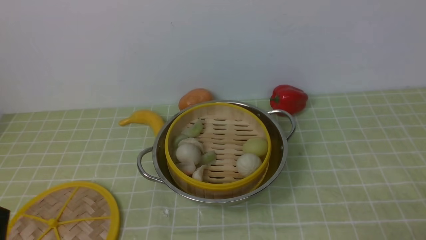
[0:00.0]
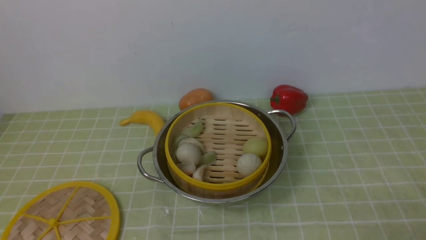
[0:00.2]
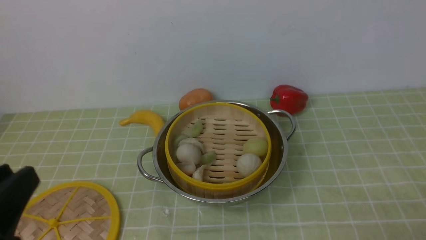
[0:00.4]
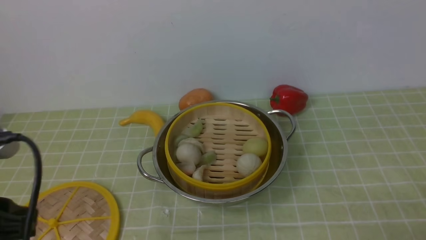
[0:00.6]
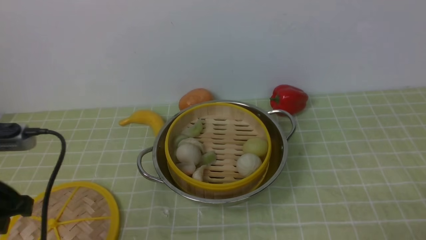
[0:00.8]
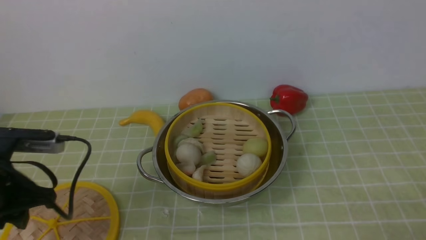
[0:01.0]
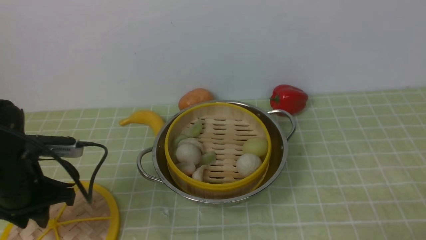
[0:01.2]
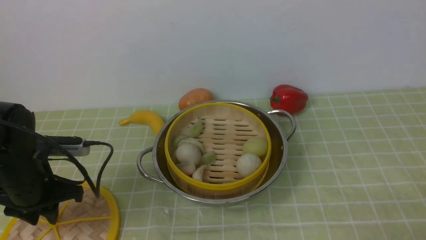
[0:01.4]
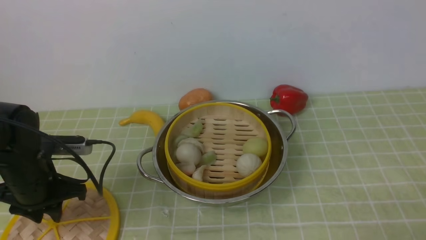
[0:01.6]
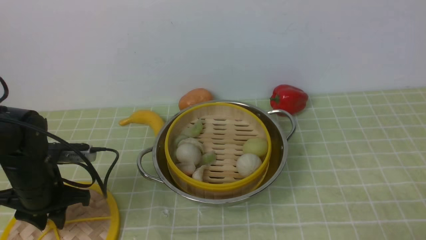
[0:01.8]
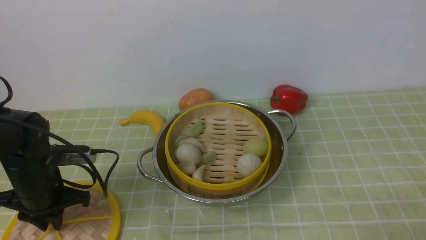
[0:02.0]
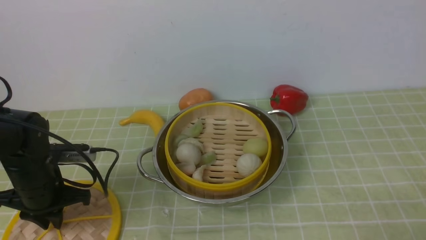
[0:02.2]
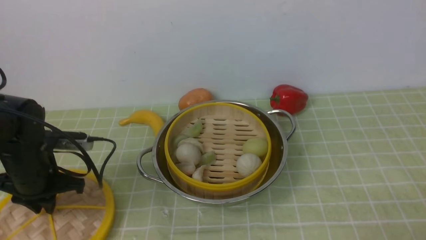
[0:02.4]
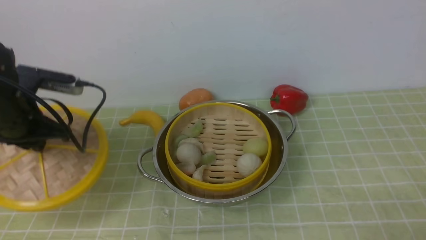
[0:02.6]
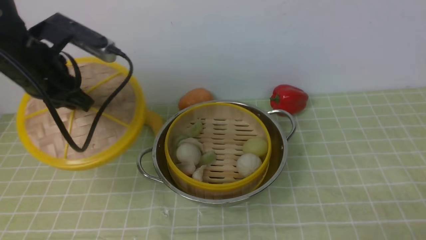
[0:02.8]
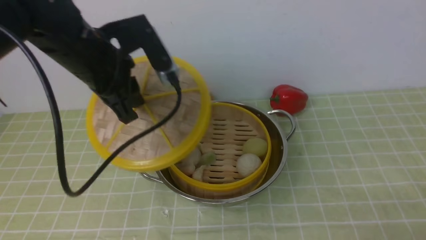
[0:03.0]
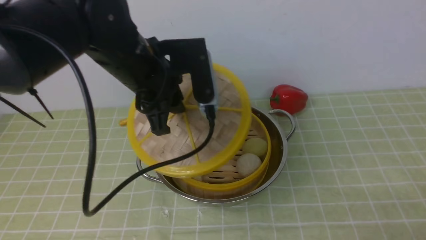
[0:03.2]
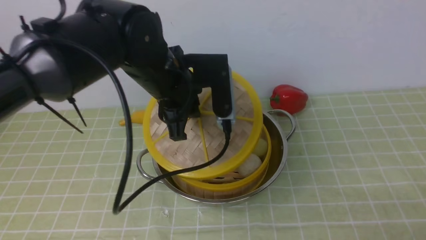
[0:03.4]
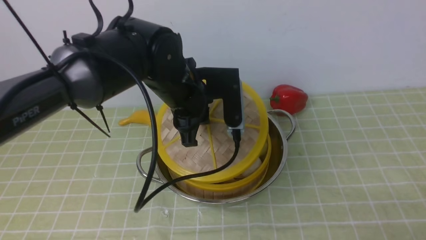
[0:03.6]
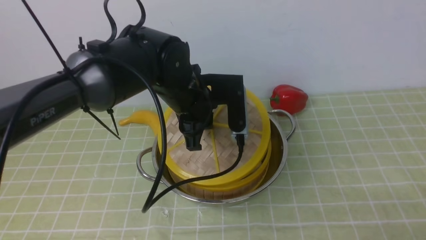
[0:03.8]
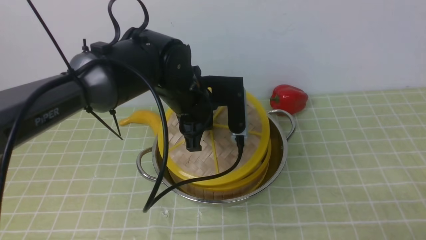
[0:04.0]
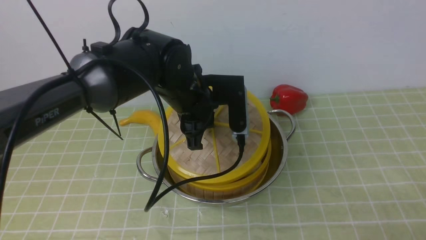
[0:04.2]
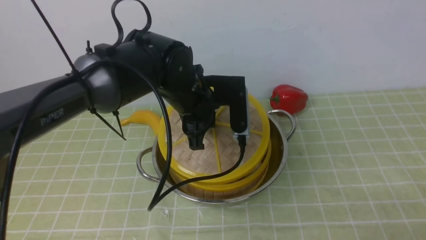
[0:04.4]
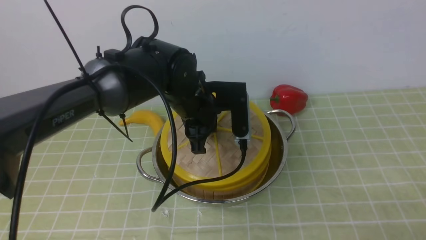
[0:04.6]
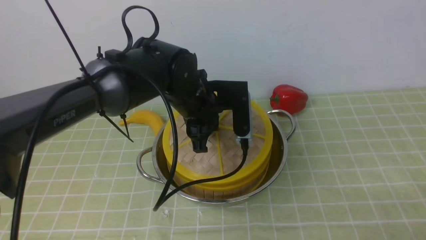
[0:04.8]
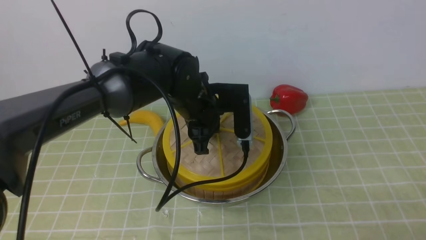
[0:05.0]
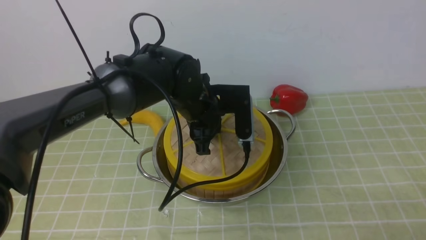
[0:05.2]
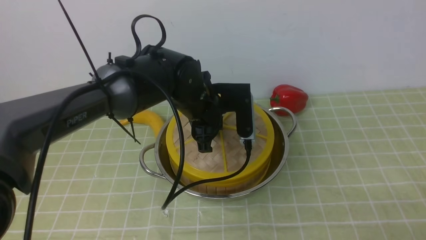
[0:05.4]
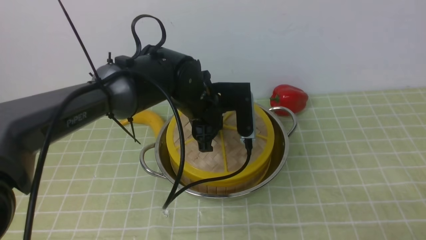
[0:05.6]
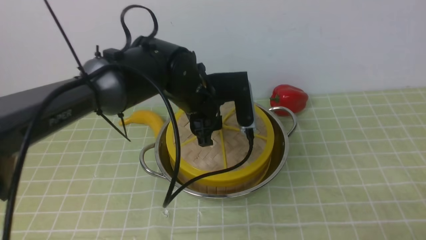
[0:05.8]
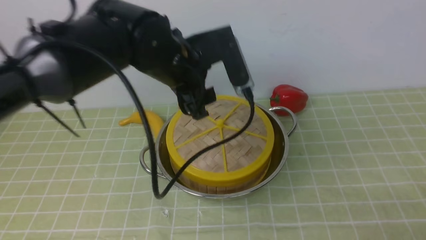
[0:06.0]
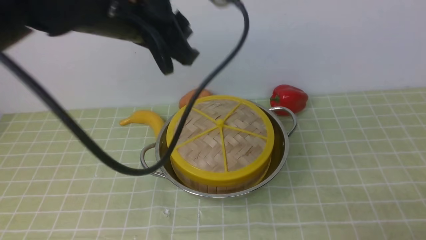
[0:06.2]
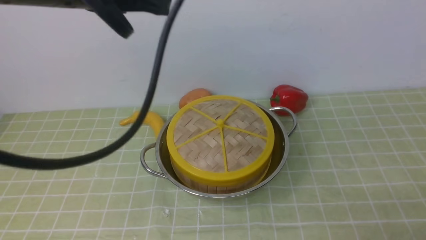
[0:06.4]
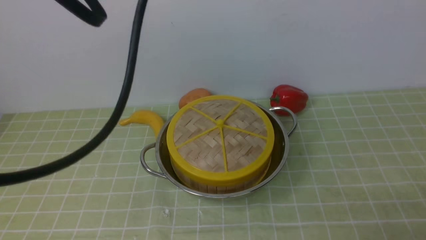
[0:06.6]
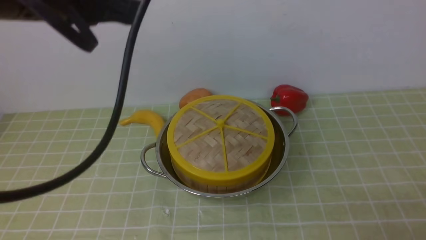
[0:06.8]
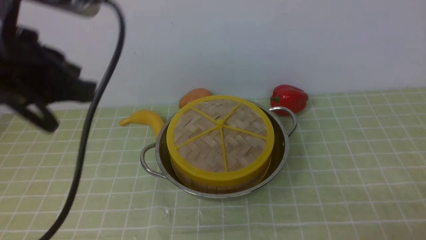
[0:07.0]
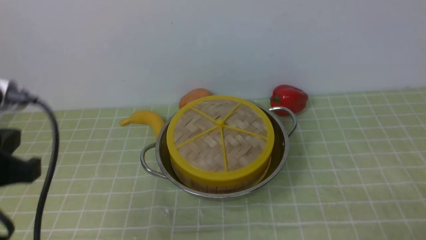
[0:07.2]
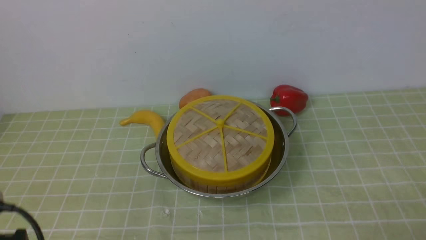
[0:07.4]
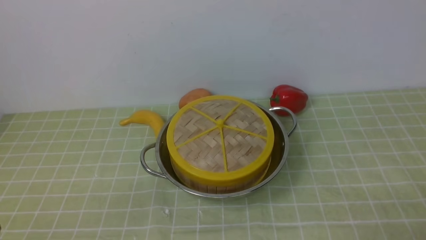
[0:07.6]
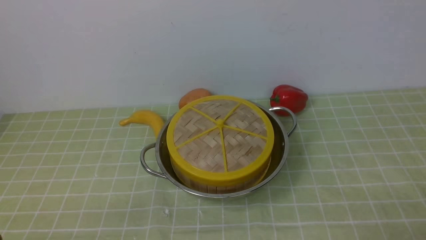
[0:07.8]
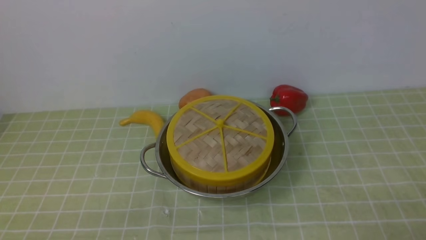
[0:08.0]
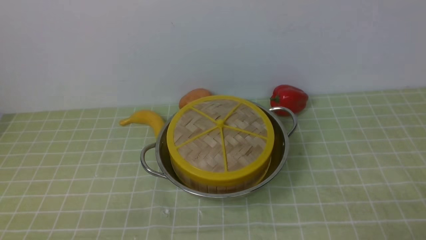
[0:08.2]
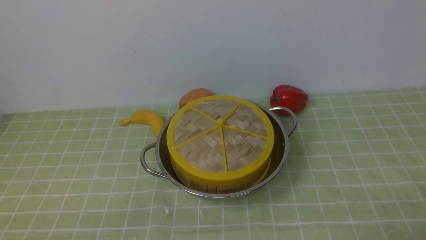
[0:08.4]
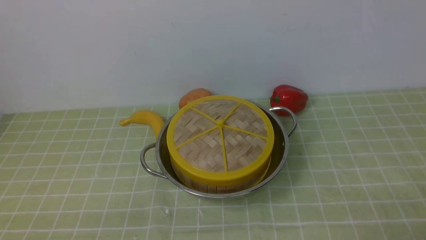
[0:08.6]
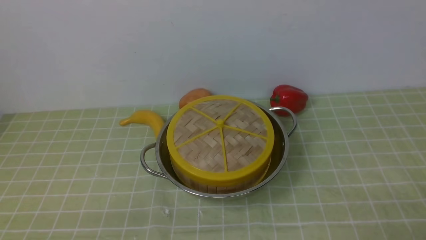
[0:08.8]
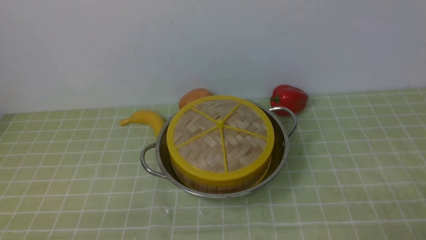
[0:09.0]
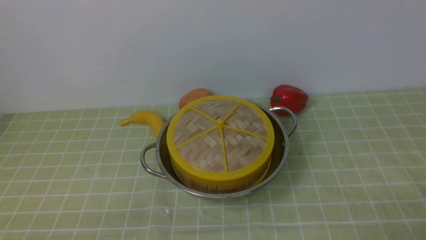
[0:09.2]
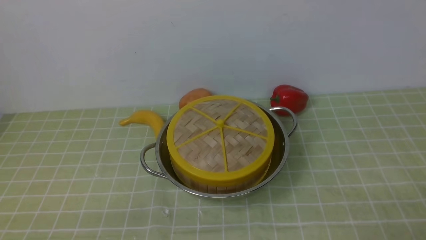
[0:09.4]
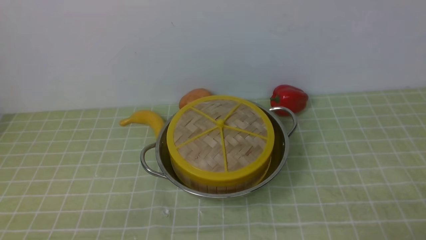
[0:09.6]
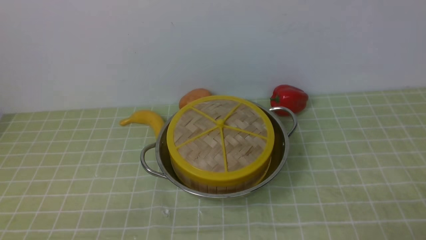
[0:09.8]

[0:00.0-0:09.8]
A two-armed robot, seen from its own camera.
Task of the whole recording: place the steamer in the pot on the green tablecloth, and put the lid on the steamer.
Step, 0:00.0 to 0:02.8: use the left arm to lift the lid of the steamer.
Step, 0:03.0 to 0:06.4: use the left arm to place the steamer lid on the steamer.
0:00.0 to 0:01.4: The left gripper heads forward, covering about 20 cm.
0:01.4 to 0:02.8: The left gripper moves upward and forward, some 10 cm, and closes.
0:02.8 to 0:04.2: The left gripper heads to the right, covering about 20 cm.
0:04.2 to 0:05.6: The grippers make only small movements.
0:05.6 to 0:07.0: The left gripper is displaced upward, backward and to the left by some 30 cm, and closes up.
0:07.0 to 0:08.4: The left gripper travels downward and backward by some 30 cm.
0:08.4 to 0:09.8: Both grippers stay put.
